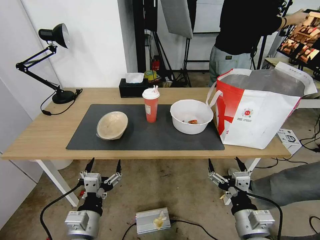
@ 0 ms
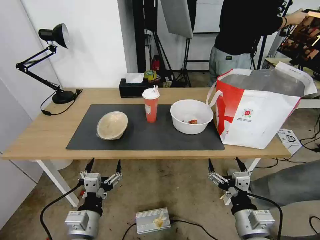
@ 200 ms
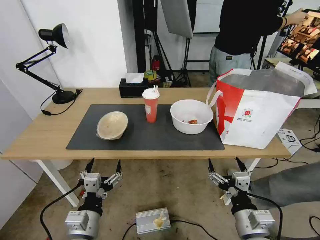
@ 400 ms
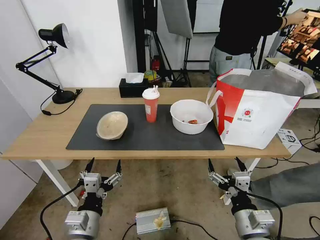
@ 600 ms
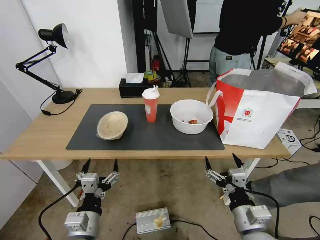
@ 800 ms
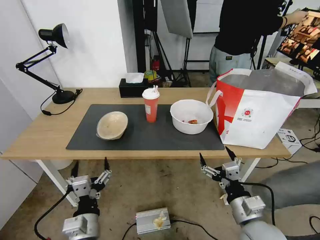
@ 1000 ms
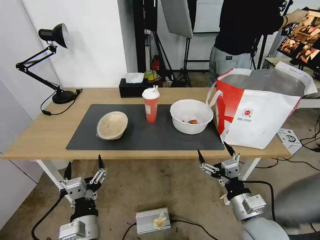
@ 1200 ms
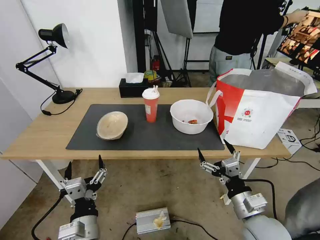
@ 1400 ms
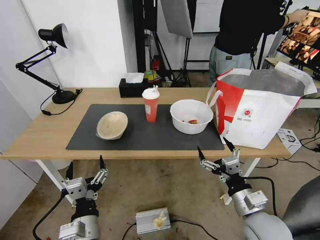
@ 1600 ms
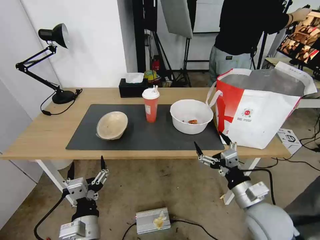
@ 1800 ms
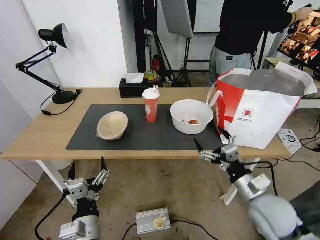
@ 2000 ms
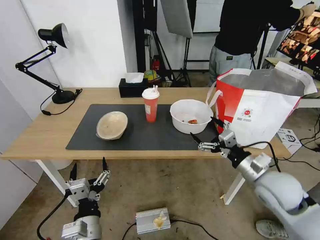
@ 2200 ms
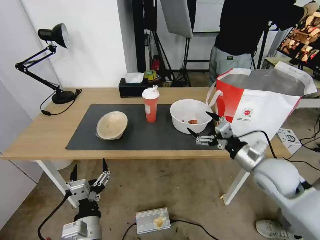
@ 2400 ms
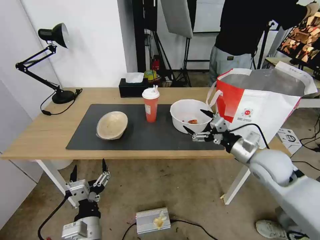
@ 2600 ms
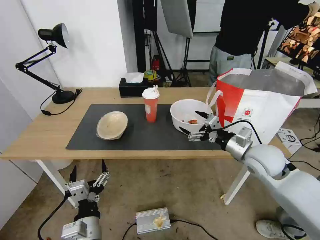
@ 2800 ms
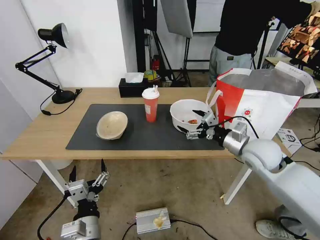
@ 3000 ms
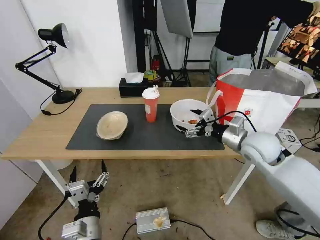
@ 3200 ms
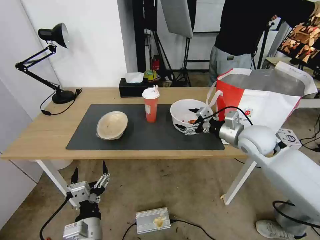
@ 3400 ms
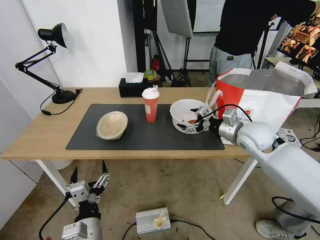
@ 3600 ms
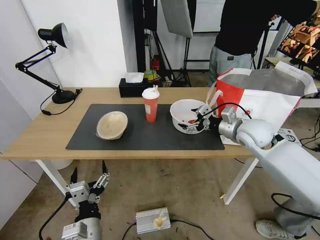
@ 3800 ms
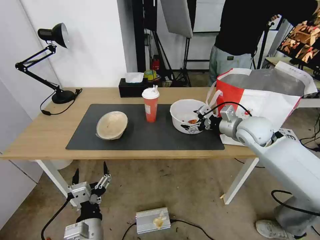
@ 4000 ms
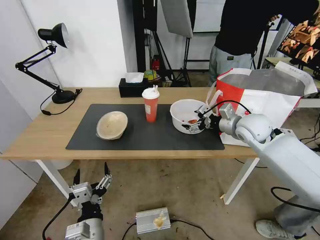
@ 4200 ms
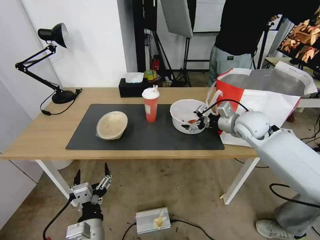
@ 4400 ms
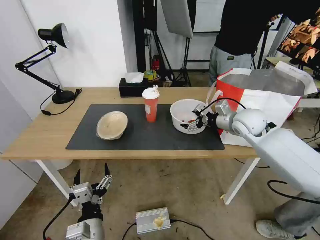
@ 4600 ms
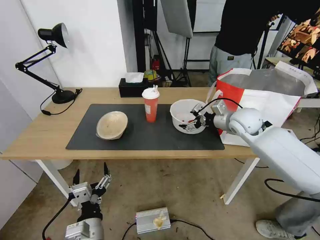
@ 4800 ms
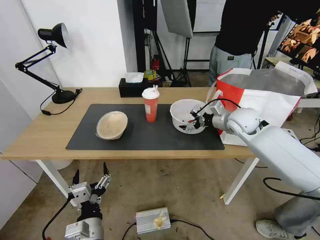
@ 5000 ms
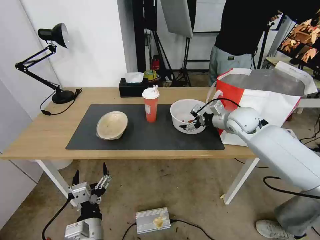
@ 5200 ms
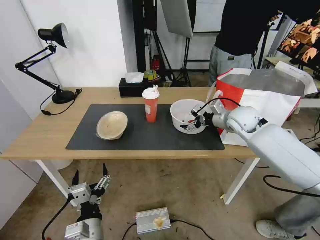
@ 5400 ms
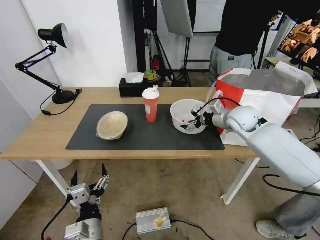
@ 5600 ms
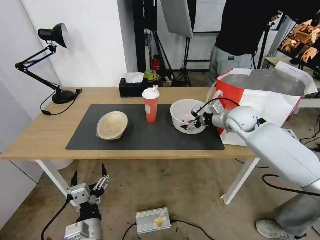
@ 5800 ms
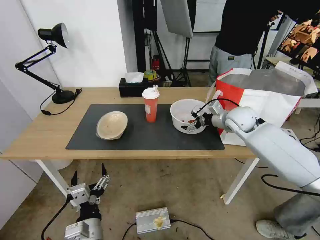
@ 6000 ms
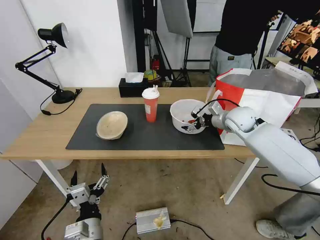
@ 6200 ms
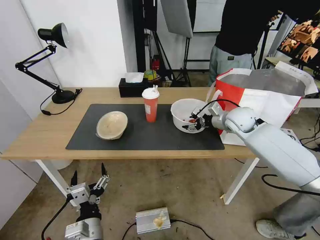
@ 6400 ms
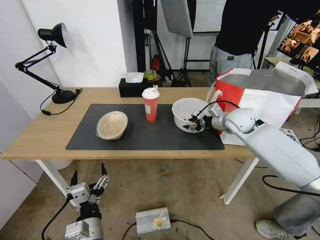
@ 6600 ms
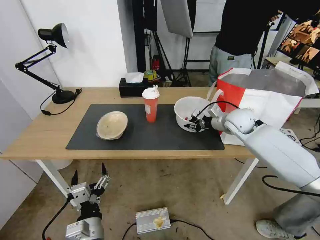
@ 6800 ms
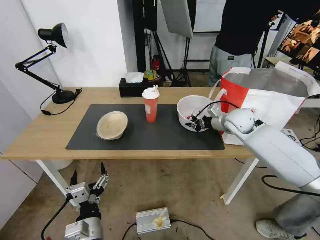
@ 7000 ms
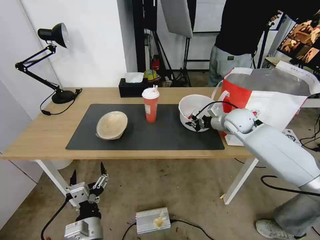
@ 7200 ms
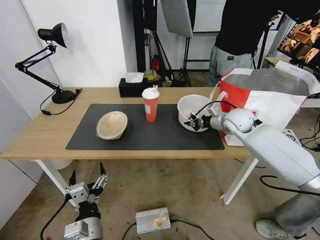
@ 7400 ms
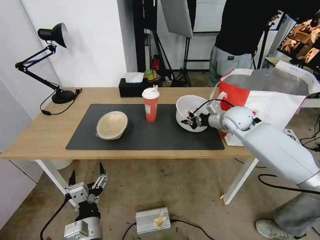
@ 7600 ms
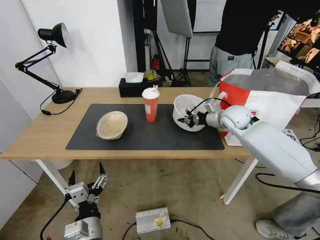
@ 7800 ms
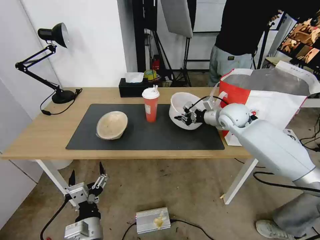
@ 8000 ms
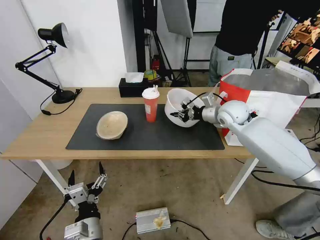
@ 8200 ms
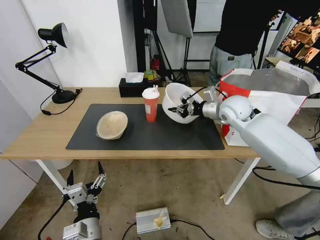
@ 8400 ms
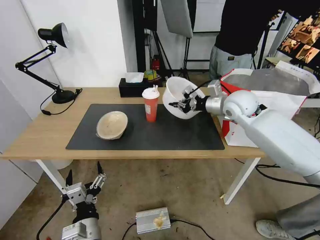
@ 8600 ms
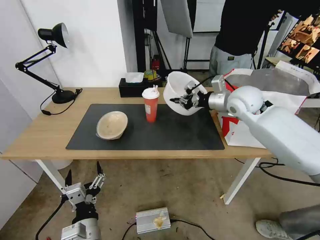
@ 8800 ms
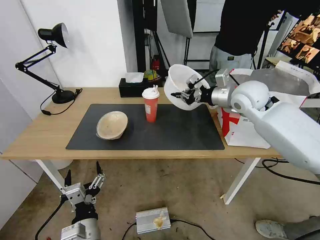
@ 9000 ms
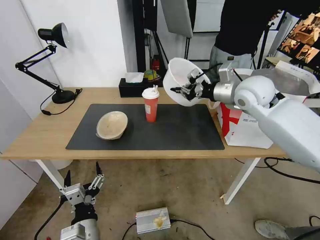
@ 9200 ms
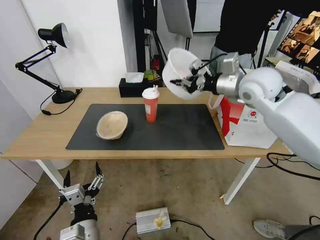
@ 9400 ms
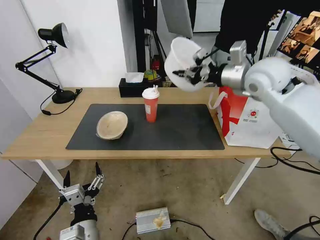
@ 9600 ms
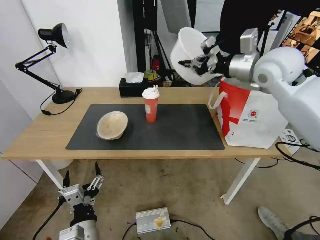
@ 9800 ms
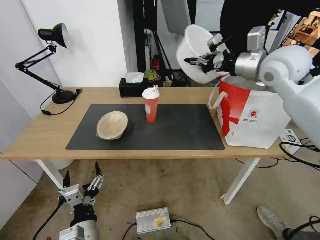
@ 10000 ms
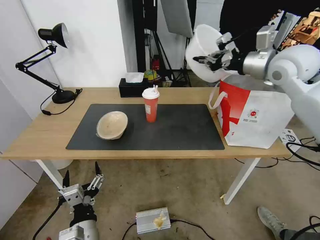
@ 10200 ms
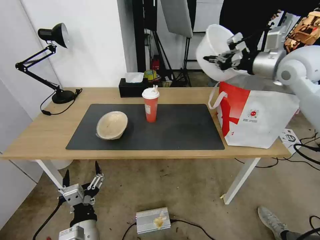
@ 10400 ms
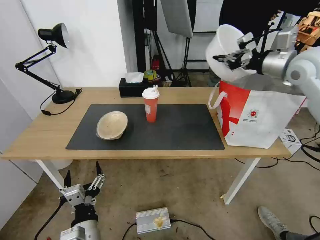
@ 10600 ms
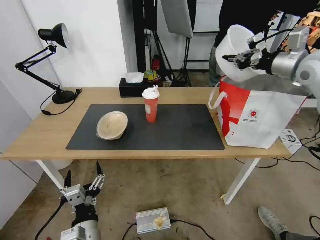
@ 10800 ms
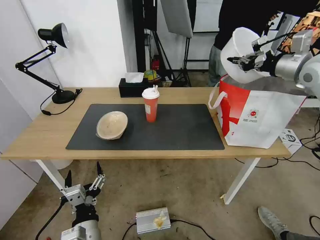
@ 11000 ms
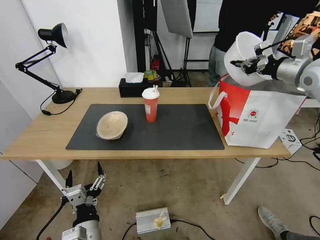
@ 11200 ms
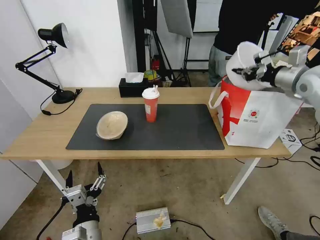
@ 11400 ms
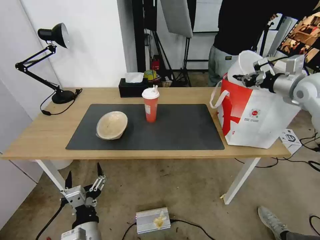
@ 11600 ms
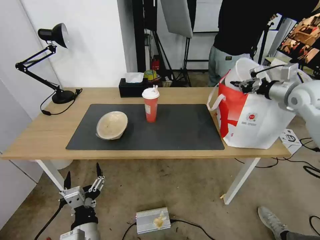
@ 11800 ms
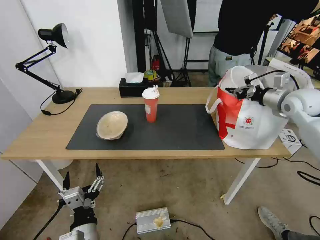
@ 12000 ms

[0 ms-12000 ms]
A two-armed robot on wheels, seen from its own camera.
Task of the whole recording: Pick up the trash from the table and place it into the takeout bag.
1600 ms to 3000 ms: The right gripper travels forward and upward by about 20 cm.
3000 ms to 4400 ms: The right gripper is displaced forward by roughly 10 cm.
4400 ms to 6000 ms: The grippers move only a little.
6000 ms to 7600 ms: The right gripper closes.
7600 ms to 9000 ms: The right gripper is displaced upward by some 10 cm.
9000 ms to 10400 ms: The right gripper shifts some 15 cm upward and to the right.
10400 ms to 12000 ms: The right gripper goes approximately 15 cm downward and to the right.

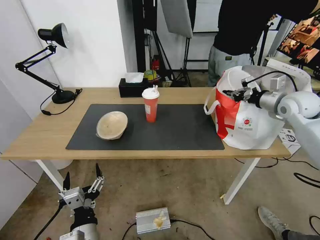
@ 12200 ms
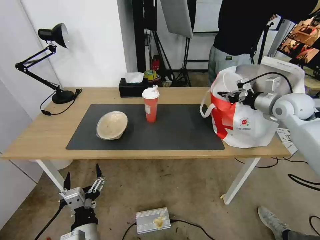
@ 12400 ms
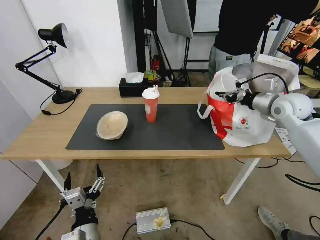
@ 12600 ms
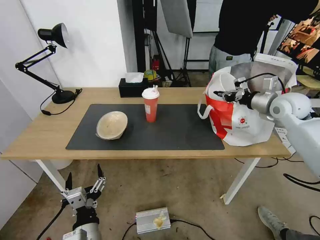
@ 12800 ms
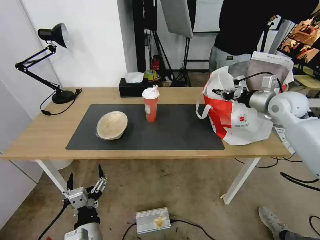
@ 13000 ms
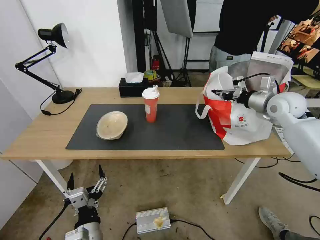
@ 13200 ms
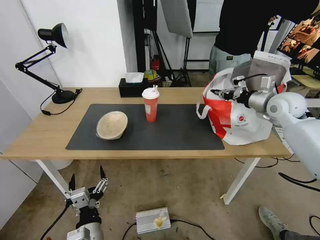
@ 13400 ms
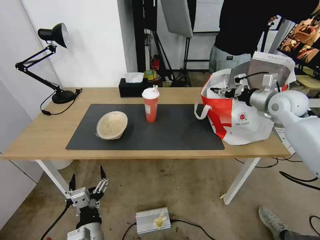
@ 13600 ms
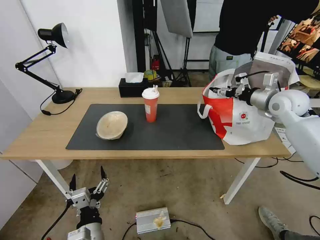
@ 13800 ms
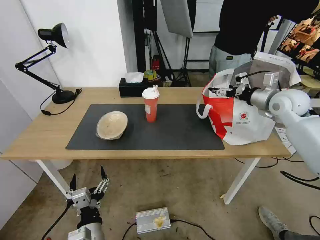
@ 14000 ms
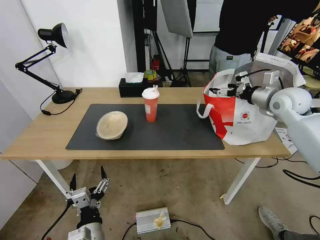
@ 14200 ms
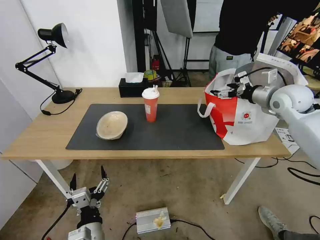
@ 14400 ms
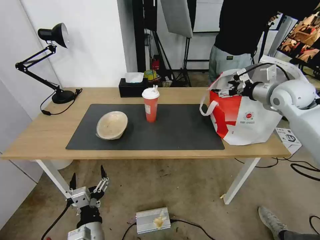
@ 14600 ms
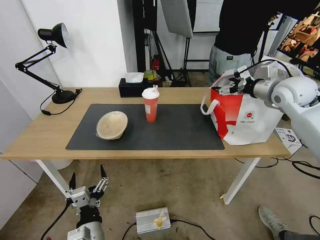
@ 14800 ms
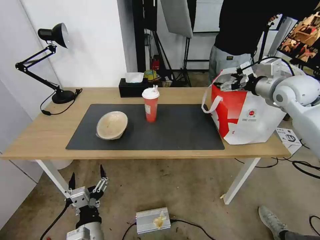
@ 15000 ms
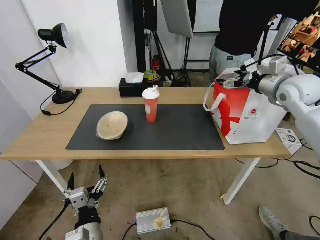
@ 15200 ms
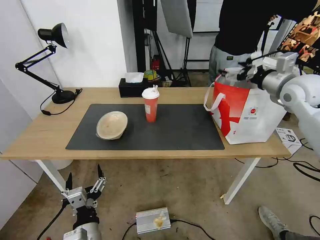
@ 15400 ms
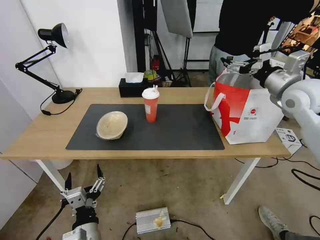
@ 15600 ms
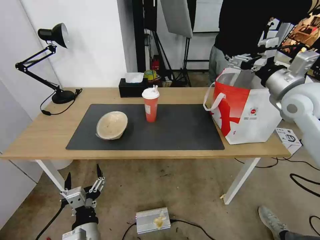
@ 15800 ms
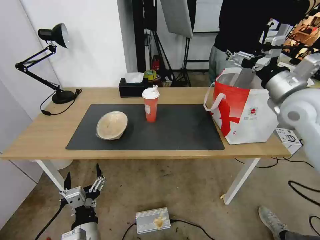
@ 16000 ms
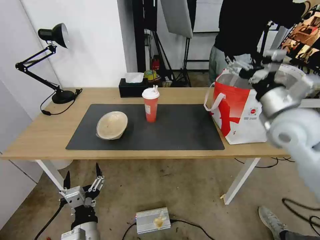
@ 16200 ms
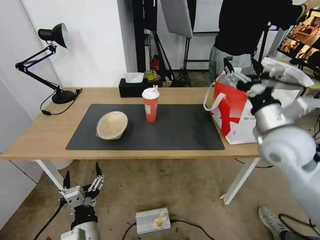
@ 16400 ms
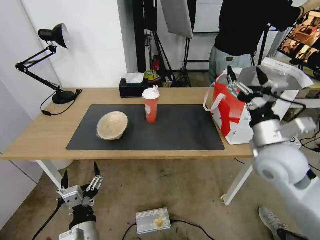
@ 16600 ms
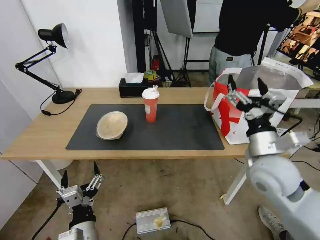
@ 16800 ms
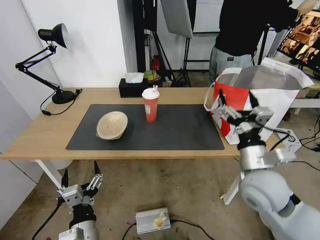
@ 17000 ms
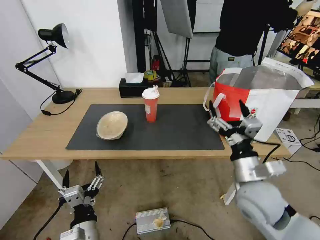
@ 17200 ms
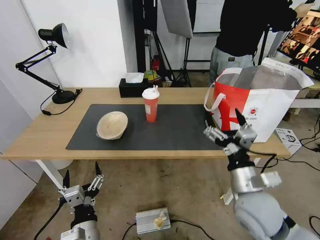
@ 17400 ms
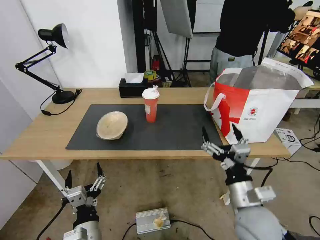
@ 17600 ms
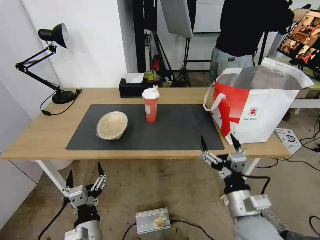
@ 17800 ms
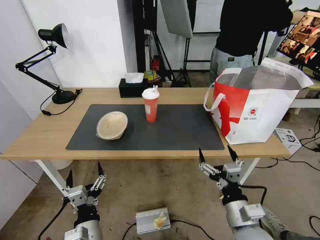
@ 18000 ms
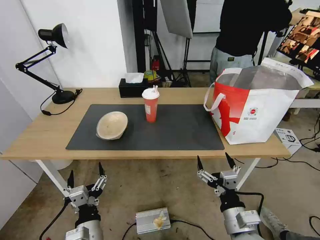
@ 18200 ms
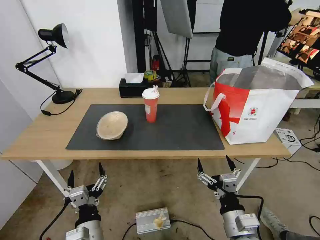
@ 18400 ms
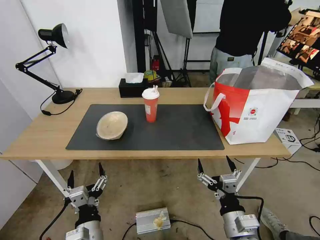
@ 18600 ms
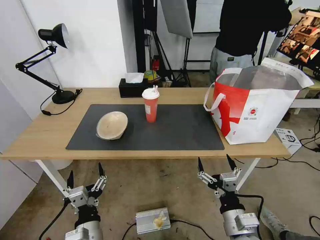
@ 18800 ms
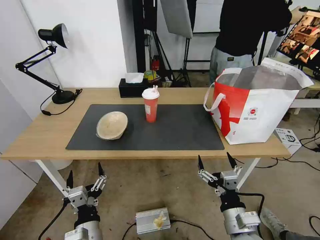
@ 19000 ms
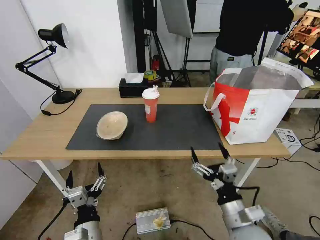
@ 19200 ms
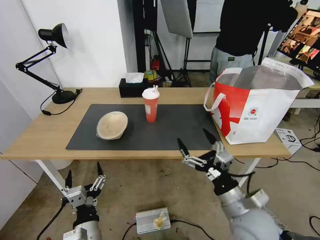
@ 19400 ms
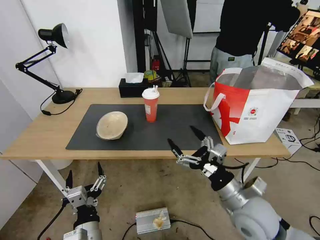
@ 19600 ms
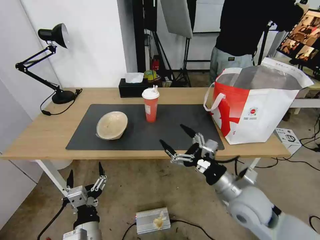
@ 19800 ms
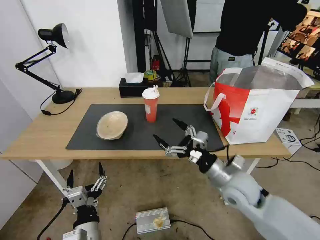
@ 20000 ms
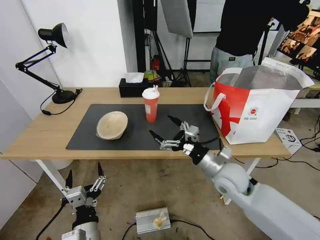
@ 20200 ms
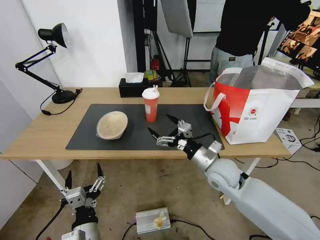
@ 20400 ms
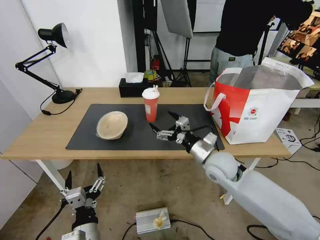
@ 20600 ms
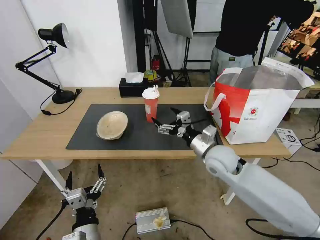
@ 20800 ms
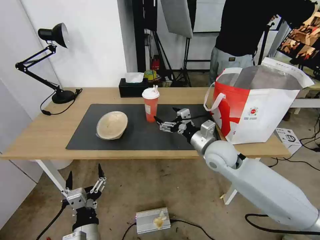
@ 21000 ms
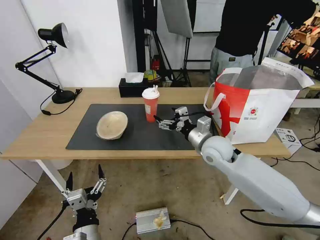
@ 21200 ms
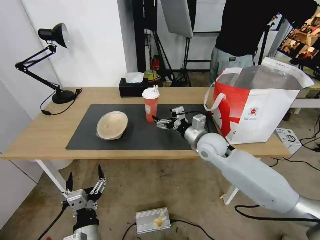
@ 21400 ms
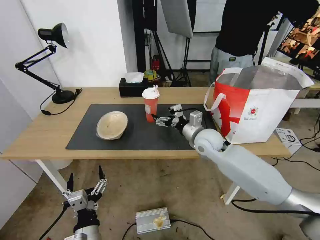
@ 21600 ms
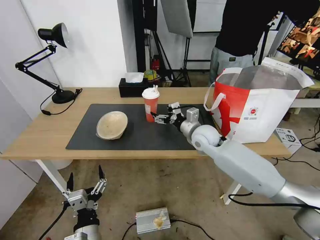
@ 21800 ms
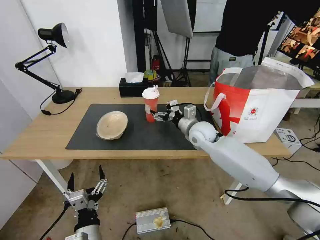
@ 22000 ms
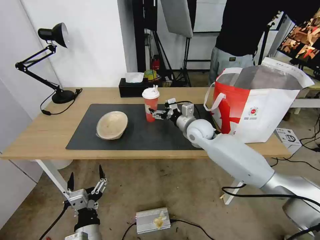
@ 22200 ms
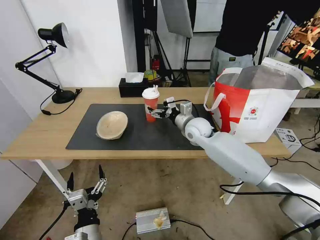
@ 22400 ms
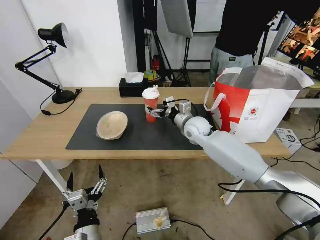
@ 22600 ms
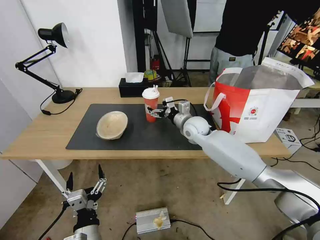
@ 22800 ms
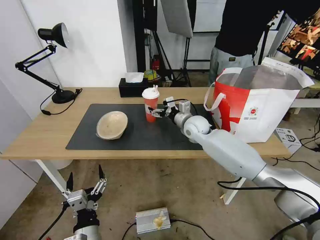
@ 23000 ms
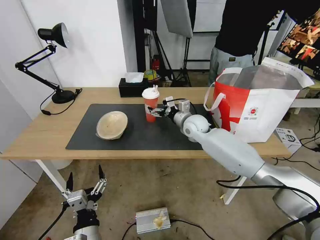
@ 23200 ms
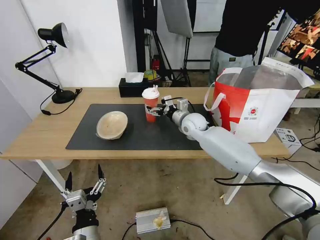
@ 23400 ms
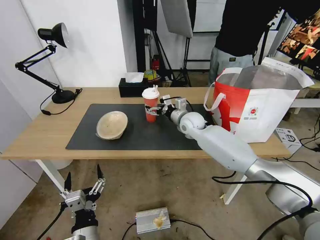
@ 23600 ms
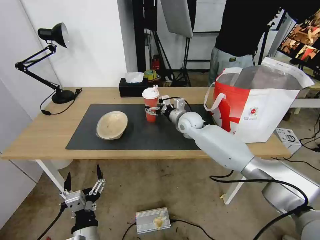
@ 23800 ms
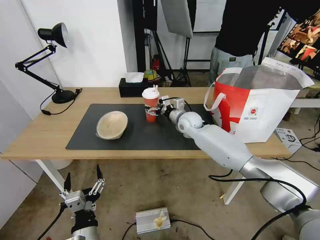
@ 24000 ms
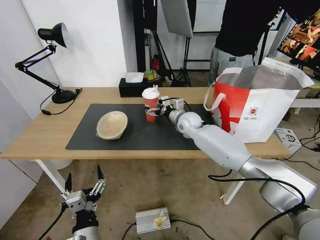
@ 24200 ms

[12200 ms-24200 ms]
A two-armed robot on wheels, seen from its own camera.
Task of the whole recording: Pick up the trash from the table and place it into the takeout bag.
12200 ms to 13800 ms: The right gripper opens up.
13800 ms to 15200 ms: The right gripper heads upward, covering roughly 5 cm, and opens its fingers.
15200 ms to 16600 ms: The right gripper is displaced backward, to the left and downward by about 25 cm.
16600 ms to 18200 ms: The right gripper travels backward, downward and to the left by roughly 25 cm.
18200 ms to 19800 ms: The right gripper goes roughly 10 cm forward and upward.
19800 ms to 21200 ms: The right gripper travels forward by roughly 15 cm.
21200 ms to 22600 ms: The right gripper is displaced forward by approximately 10 cm.
22600 ms to 24200 ms: The right gripper shifts by approximately 5 cm.
